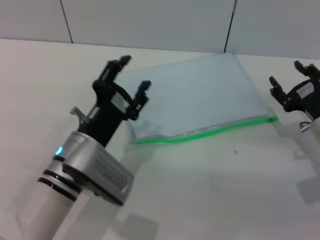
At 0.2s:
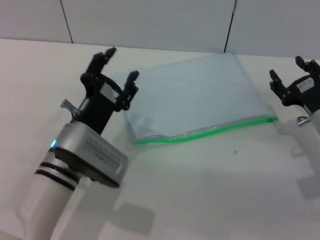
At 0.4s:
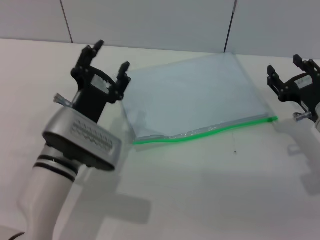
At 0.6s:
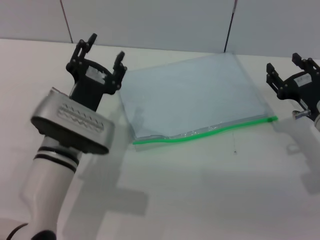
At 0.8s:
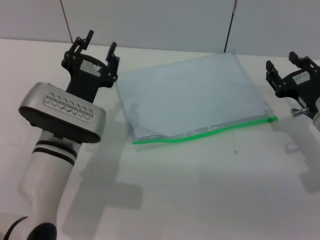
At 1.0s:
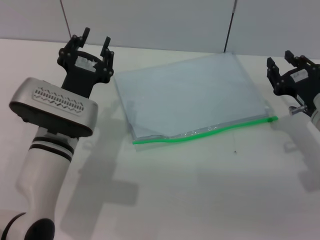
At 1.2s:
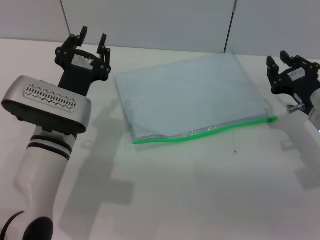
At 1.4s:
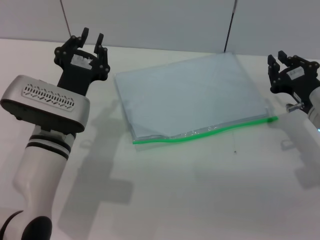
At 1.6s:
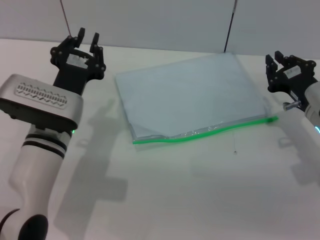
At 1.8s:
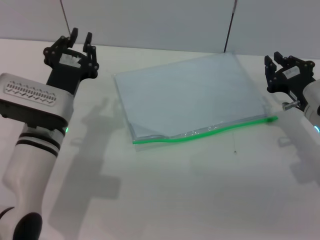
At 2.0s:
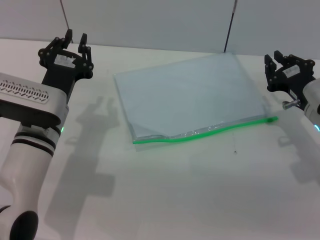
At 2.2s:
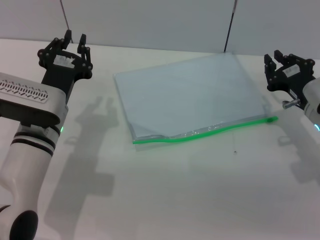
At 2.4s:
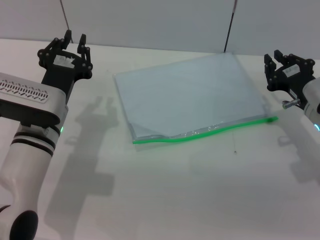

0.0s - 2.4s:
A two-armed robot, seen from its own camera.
0.0s - 1.2s: The left gripper shifts by approximately 5 cm, and closes its fingers. Meanwhile the right gripper closes its fingers.
1.2s - 2.4s: The grippers stay close to where they were, moving slightly.

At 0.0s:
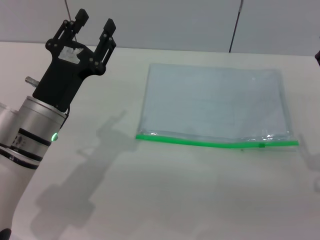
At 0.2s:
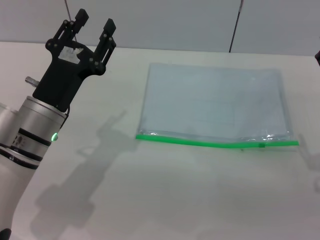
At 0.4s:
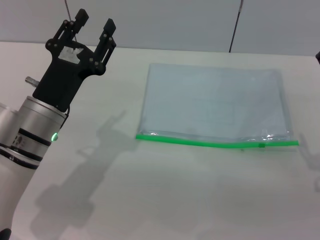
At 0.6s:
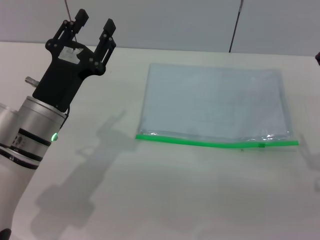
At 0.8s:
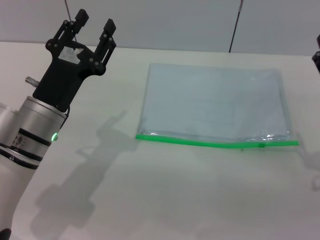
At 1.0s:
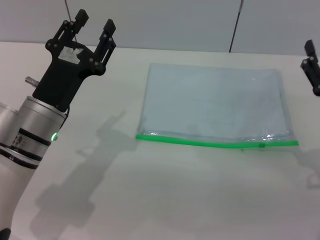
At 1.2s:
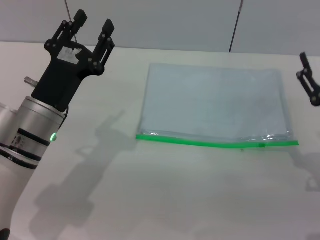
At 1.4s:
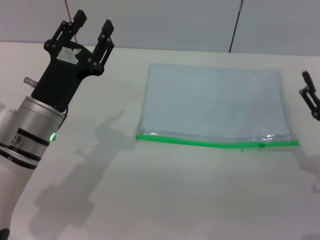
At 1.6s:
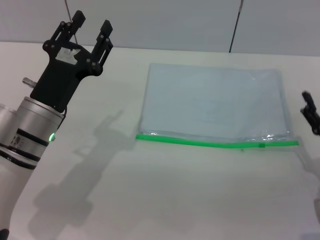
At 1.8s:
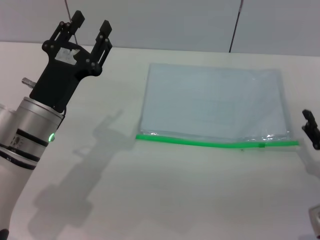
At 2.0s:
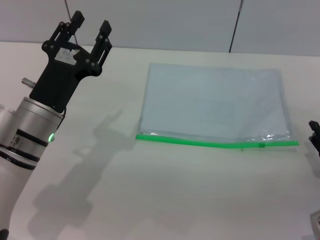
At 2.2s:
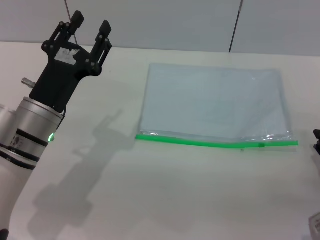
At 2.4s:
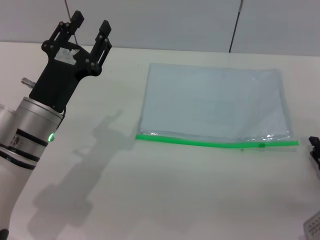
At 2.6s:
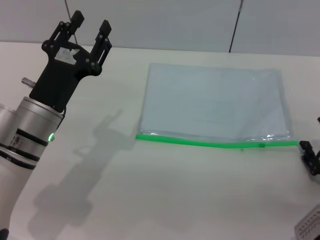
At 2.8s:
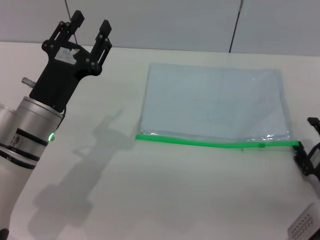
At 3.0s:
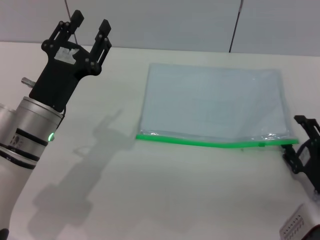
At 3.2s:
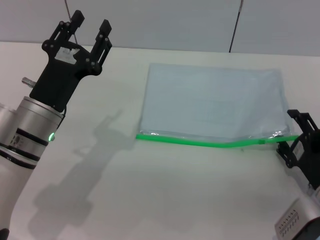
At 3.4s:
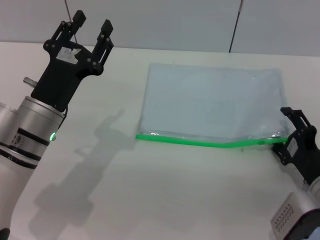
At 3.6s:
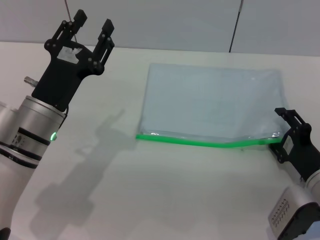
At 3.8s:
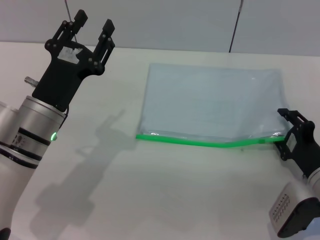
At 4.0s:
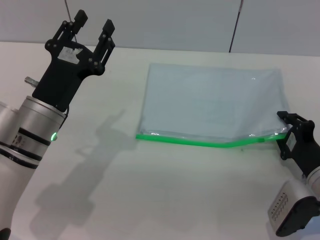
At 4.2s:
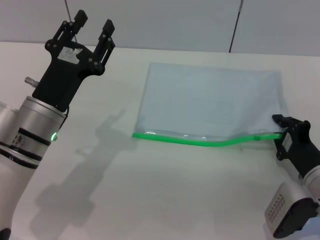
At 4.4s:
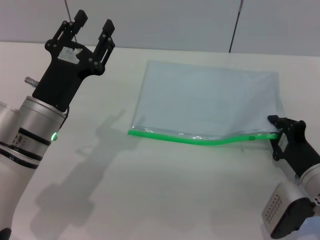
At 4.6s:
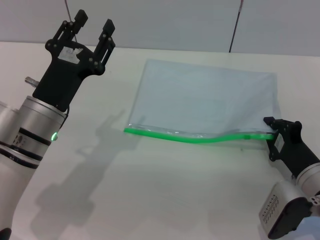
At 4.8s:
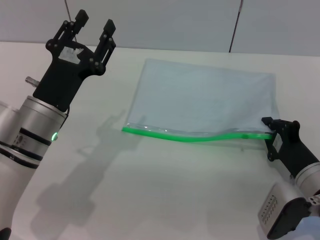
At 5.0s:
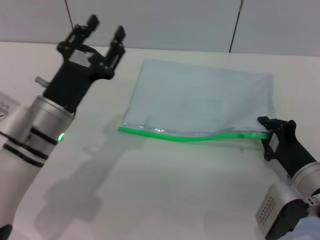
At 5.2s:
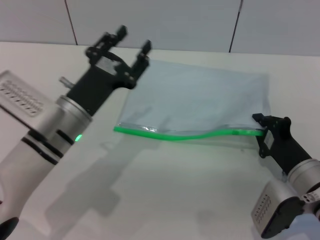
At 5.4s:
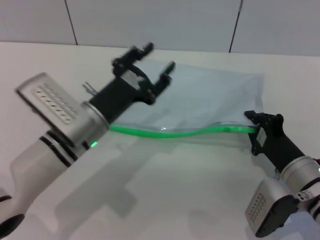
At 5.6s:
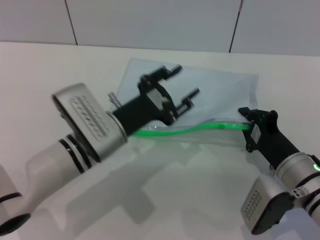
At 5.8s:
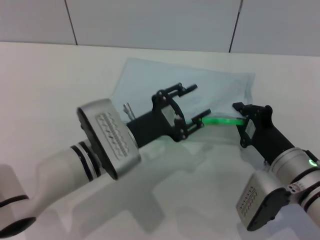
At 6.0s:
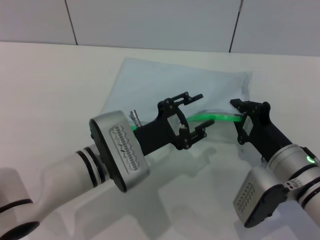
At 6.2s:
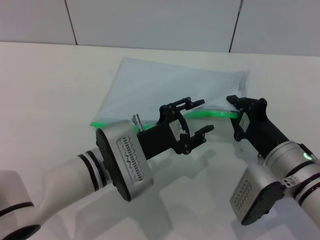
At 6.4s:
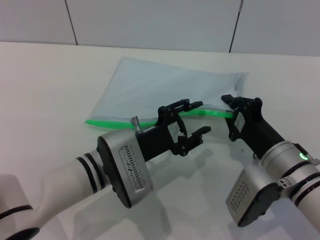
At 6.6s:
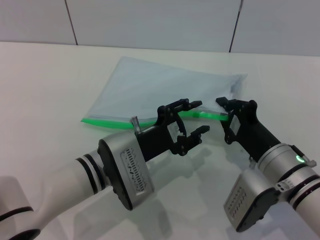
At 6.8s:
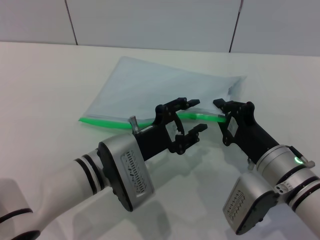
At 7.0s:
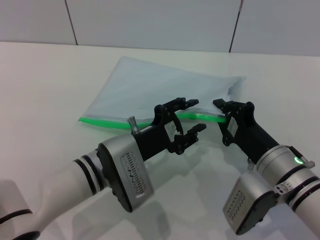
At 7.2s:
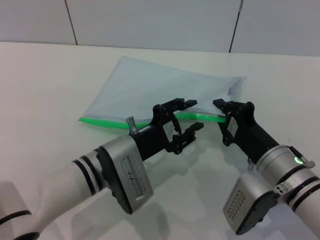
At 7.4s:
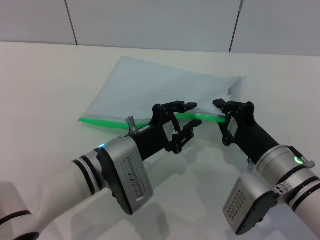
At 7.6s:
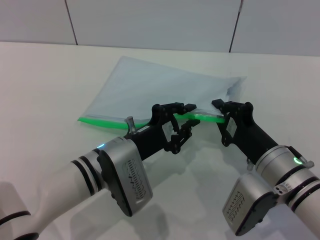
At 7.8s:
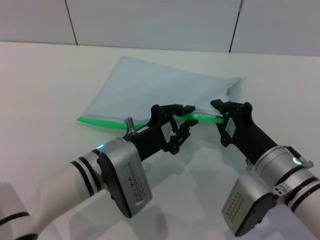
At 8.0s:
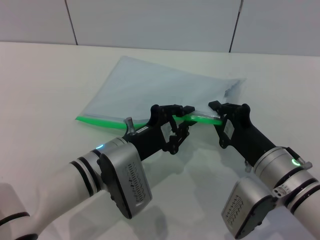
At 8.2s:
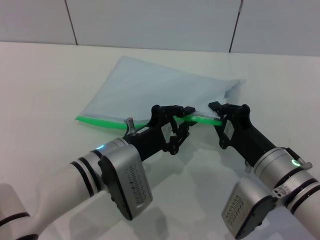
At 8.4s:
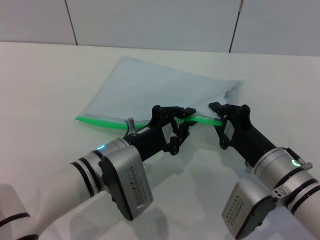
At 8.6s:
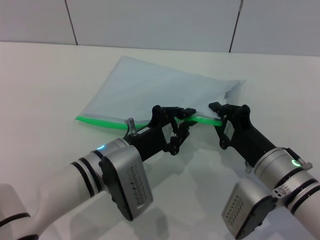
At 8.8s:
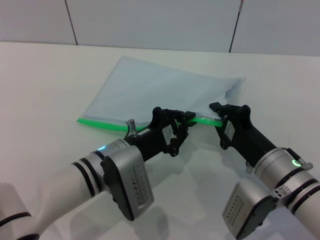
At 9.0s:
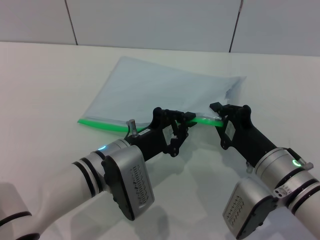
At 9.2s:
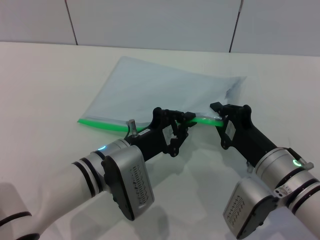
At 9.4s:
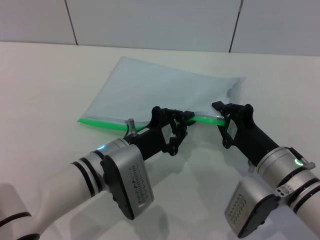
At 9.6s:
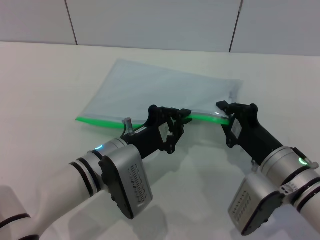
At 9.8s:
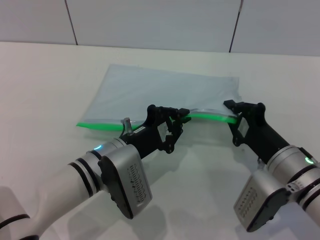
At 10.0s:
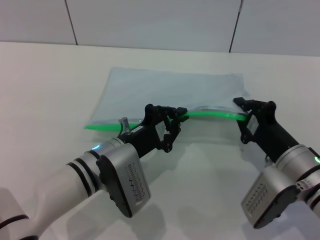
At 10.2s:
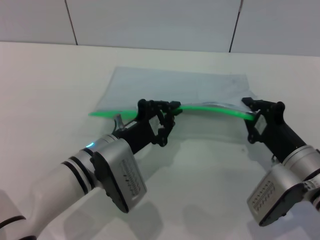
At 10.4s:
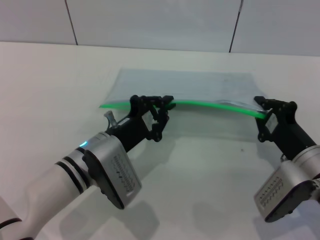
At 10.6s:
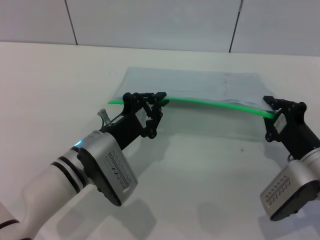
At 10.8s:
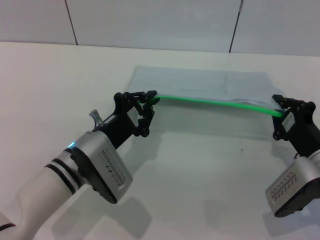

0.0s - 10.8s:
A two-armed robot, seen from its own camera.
Step, 0.0s - 5.4s: Pick up the transparent plastic bag with the right gripper.
0.0s - 1.6s: The right gripper moves about 5 cm.
3.0s - 4.6s: The right gripper closes its fingers.
4.6s - 6.2s: The right gripper shifts approximately 5 cm to the left. The left gripper goes roughly 10 cm to the right.
6.2s - 7.8s: The left gripper closes its fingers.
7.8s - 9.2s: The left gripper closes up.
9.2s - 10.8s: The right gripper travels to the right by some 5 cm.

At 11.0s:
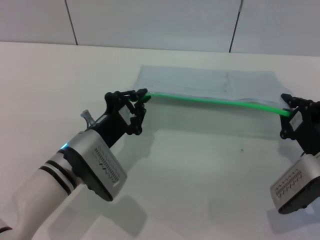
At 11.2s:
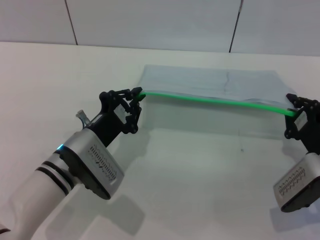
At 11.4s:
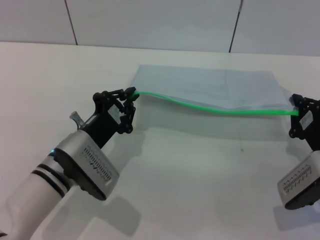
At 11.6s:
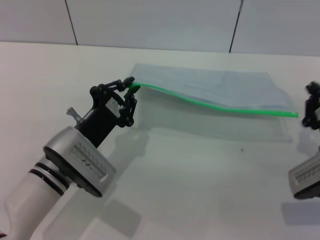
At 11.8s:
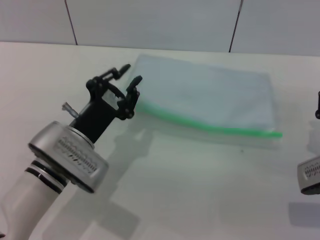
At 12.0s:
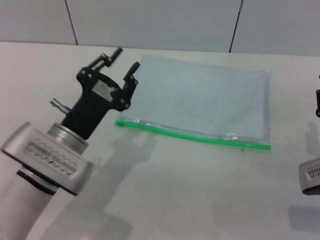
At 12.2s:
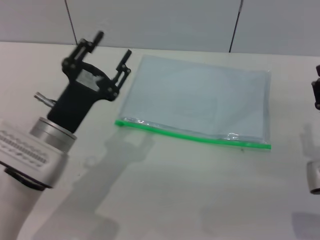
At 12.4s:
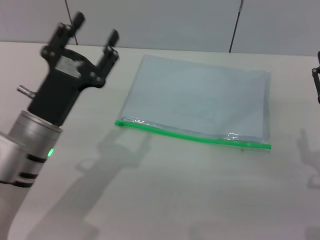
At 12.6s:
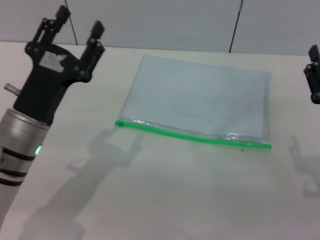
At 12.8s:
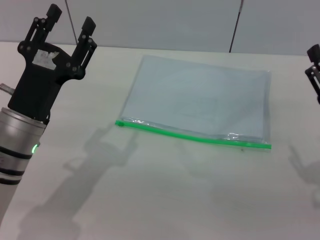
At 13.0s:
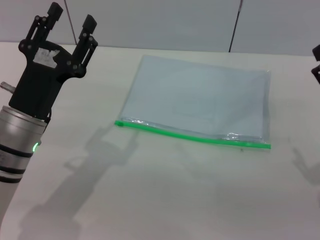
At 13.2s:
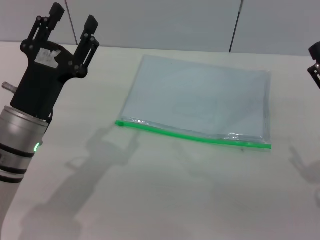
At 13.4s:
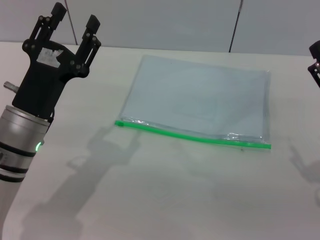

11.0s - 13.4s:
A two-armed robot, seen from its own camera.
Step, 12.0s - 12.8s: Place the transparent plastic bag.
11.0s - 12.2s: The right gripper opens its fingers, while the left gripper opens its fingers.
12.2s - 13.4s: The right gripper opens up; the left gripper opens up.
